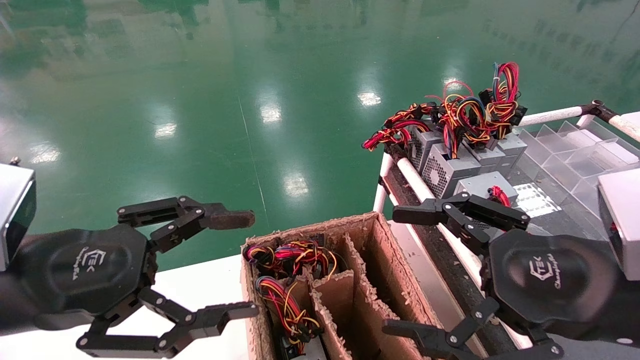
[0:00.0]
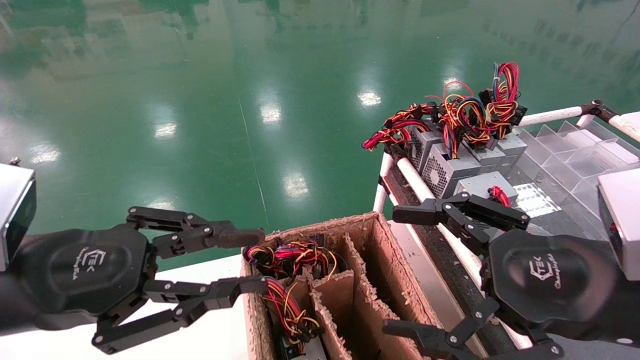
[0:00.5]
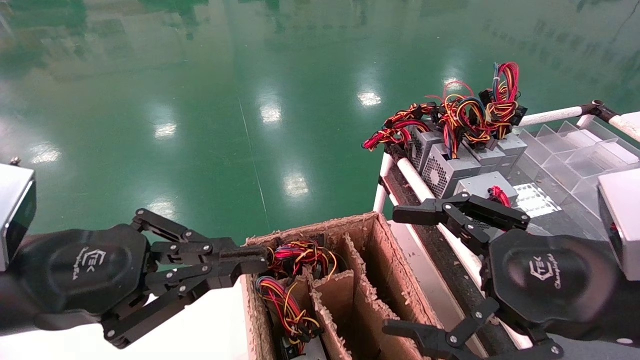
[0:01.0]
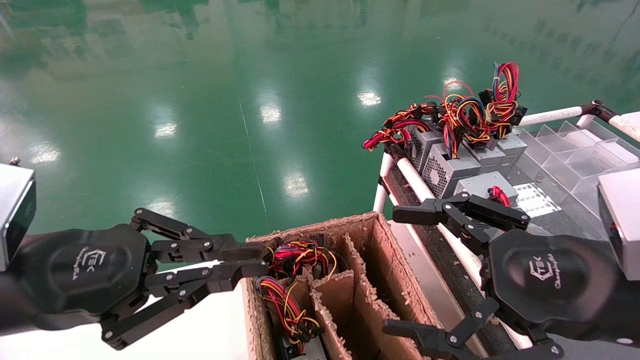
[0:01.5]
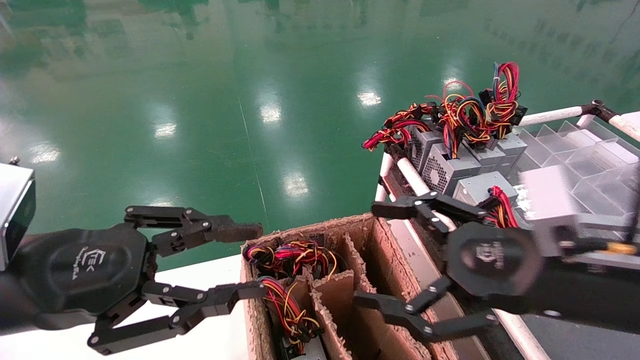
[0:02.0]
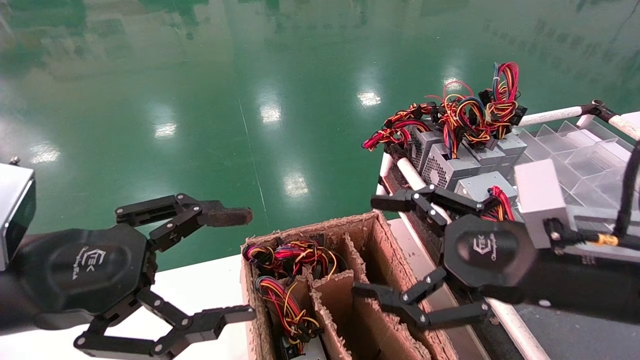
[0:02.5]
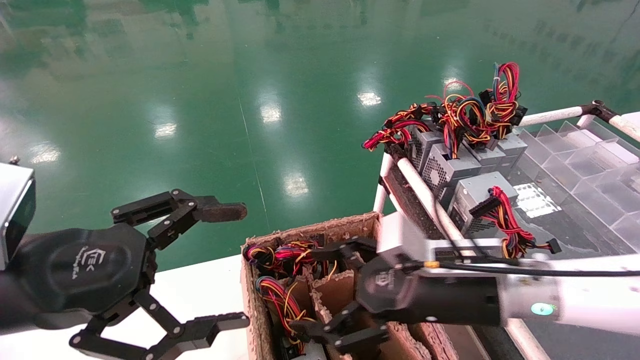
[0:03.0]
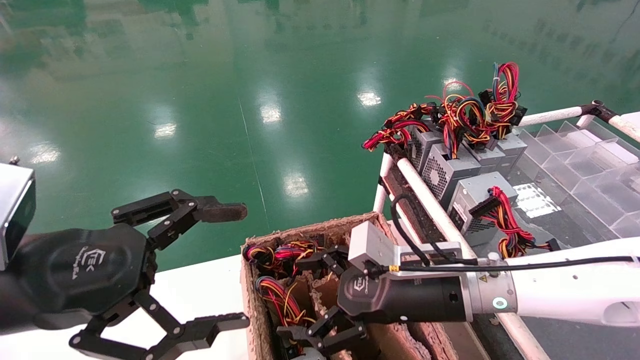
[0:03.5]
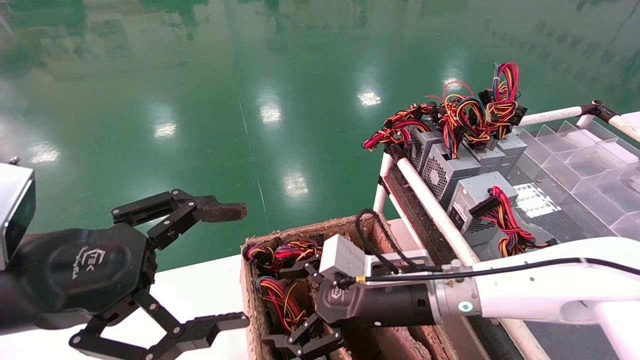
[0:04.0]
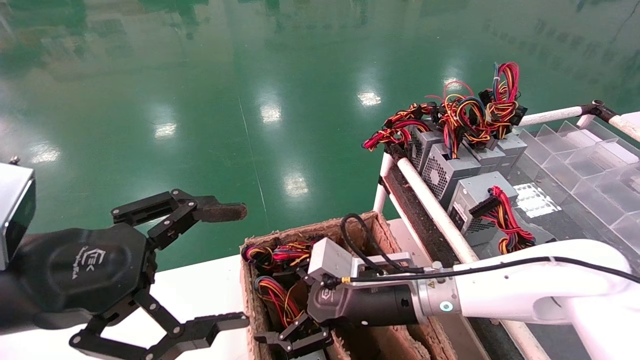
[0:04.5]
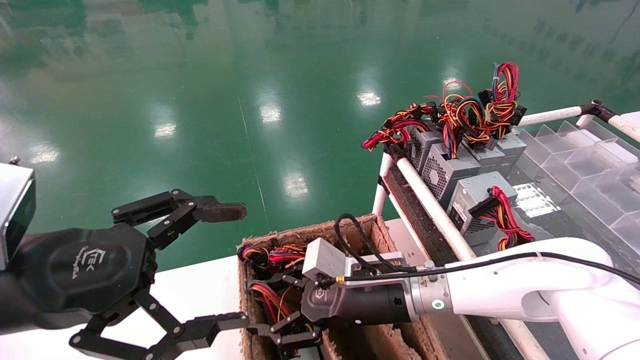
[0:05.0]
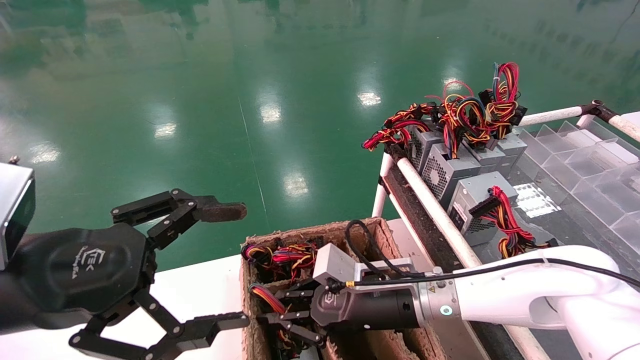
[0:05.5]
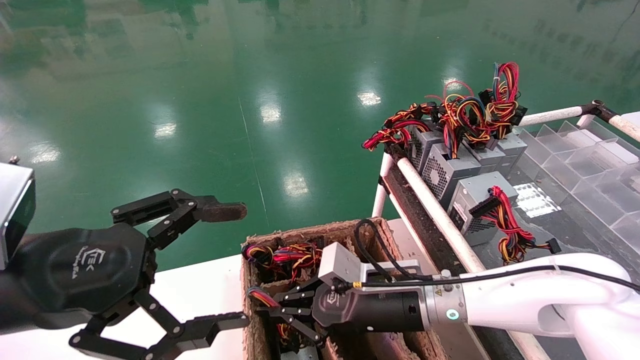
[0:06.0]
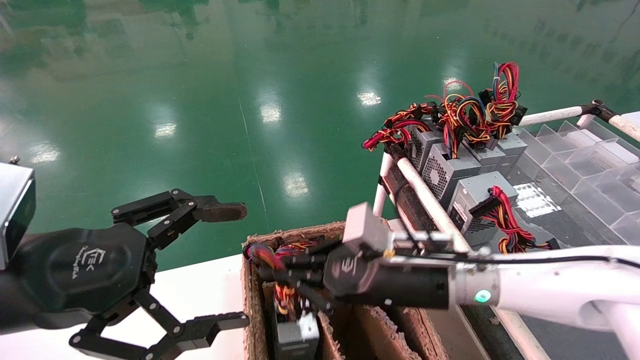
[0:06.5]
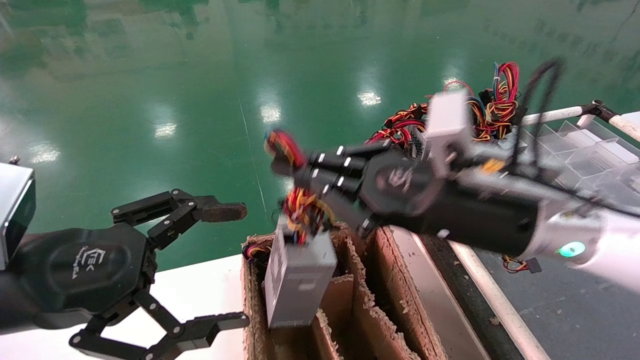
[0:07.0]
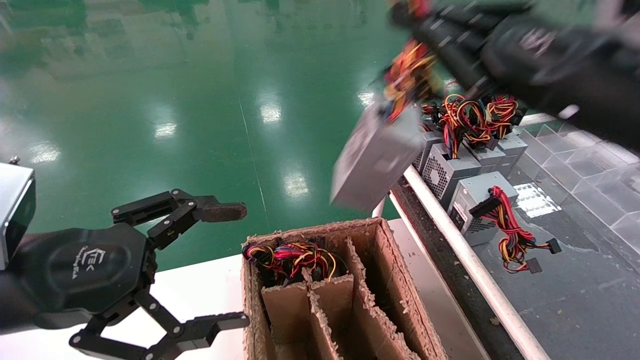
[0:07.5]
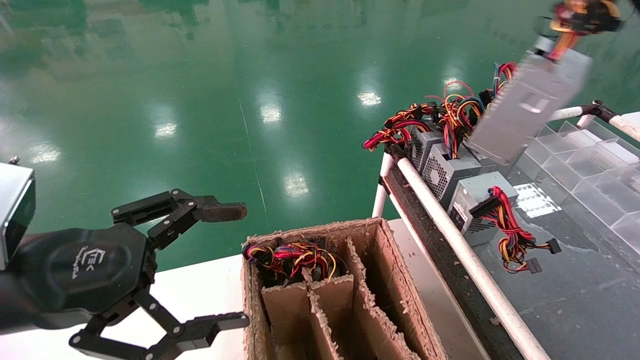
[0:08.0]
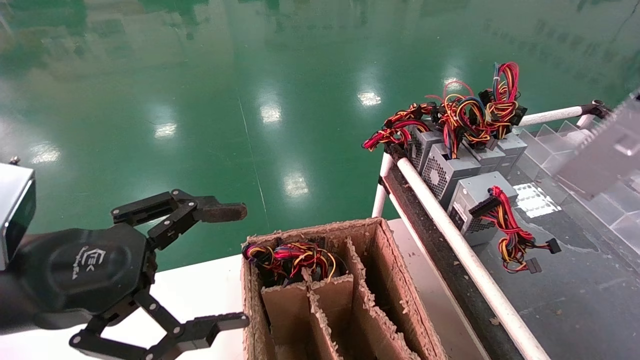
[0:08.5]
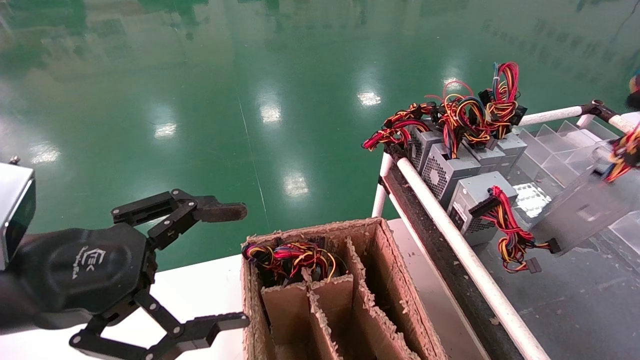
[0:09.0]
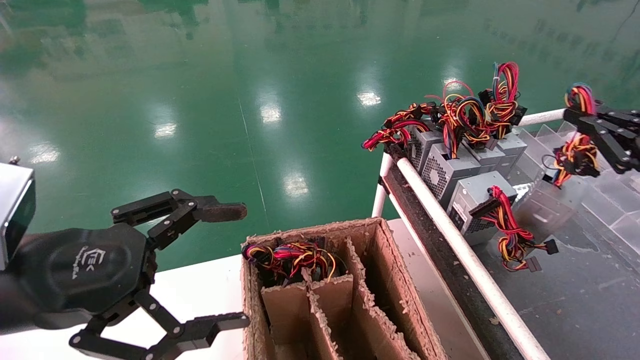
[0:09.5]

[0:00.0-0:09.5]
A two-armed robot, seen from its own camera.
Step, 0:01.0 to 0:06.0: Grab and lift the power supply from the large box.
0:00.0 to 0:02.0: The left gripper closes up.
0:02.0 to 0:04.0: The left gripper opens. Meanwhile the right gripper shifts approximately 20 cm to the left, forward and downward.
0:04.0 to 0:05.5: The right gripper closes up.
0:05.5 to 0:07.5: The right gripper moves upward and to the right, about 30 cm.
0:07.5 to 0:09.5: The right gripper shifts roughly 20 cm to the right and downward.

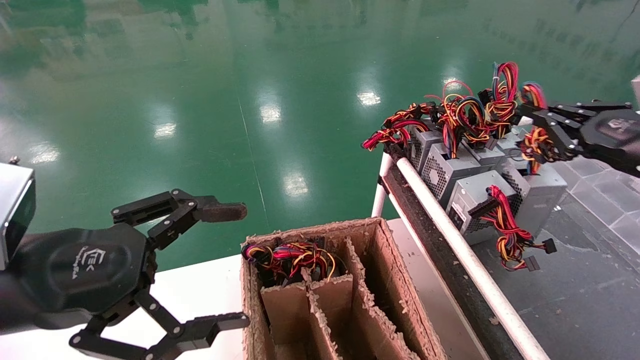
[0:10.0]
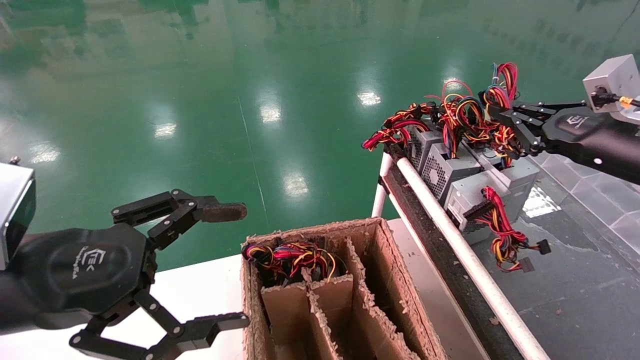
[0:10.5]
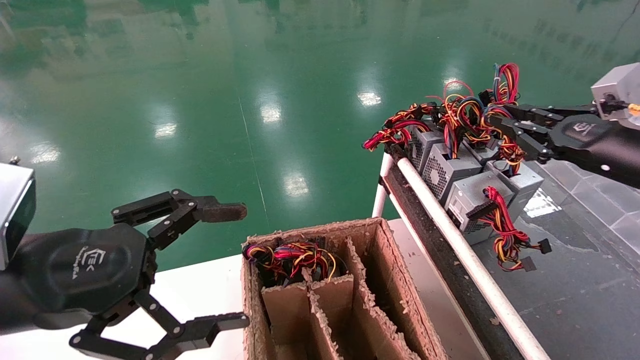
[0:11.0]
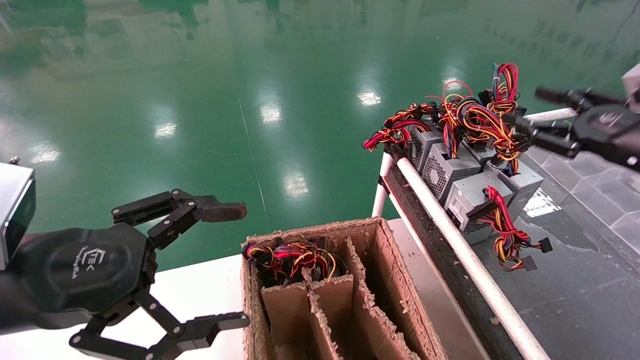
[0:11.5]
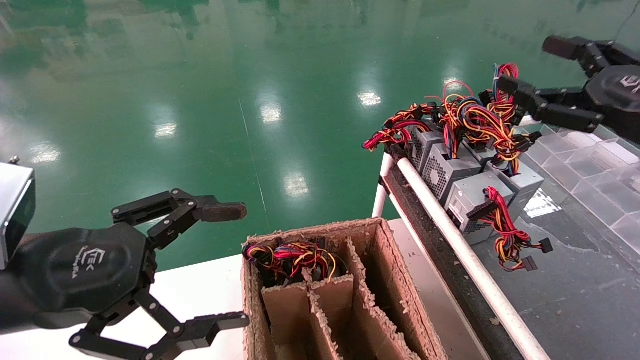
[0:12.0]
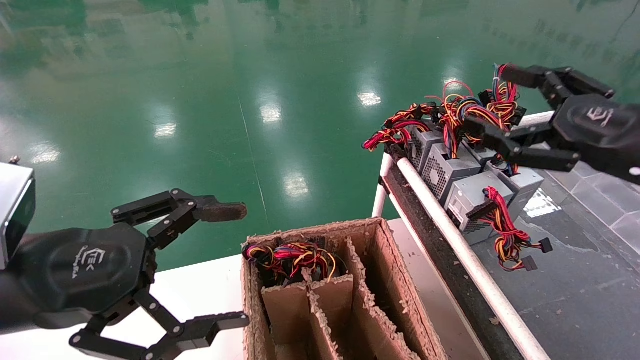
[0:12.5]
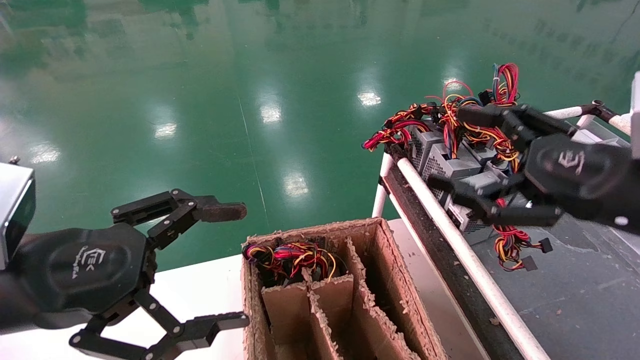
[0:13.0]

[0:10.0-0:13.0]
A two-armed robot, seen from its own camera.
0:10.0 to 0:11.5: The right gripper opens.
0:11.5 to 0:13.0: The right gripper shifts approximately 15 cm to the left and backward, and opens its fingers.
